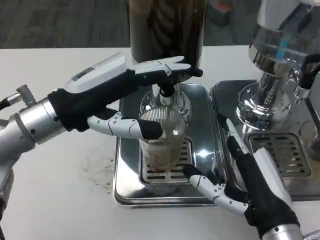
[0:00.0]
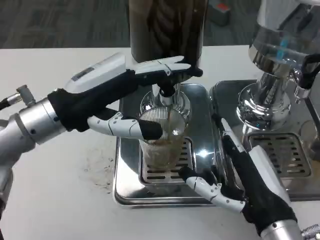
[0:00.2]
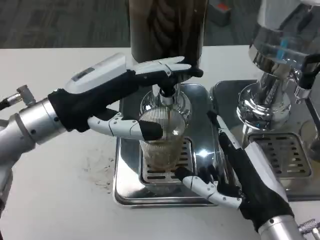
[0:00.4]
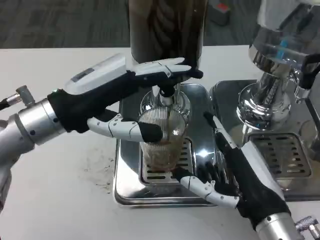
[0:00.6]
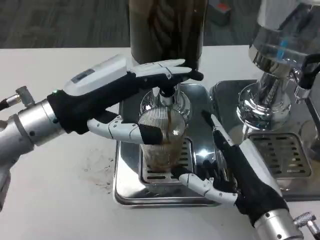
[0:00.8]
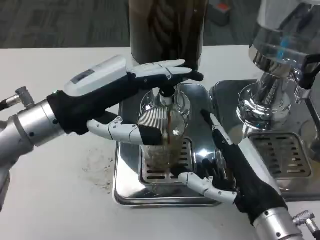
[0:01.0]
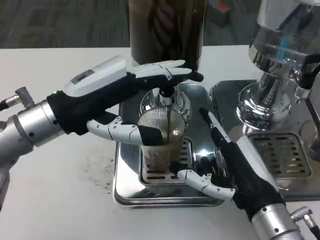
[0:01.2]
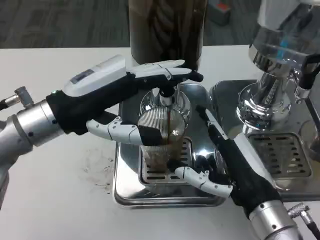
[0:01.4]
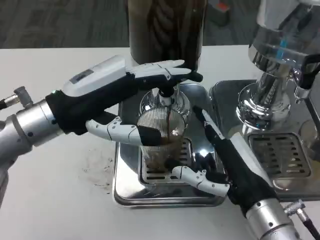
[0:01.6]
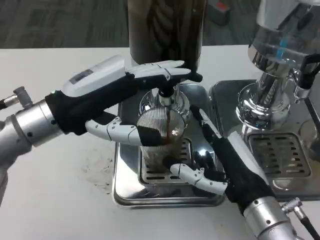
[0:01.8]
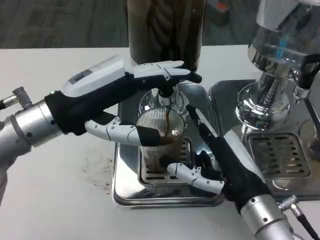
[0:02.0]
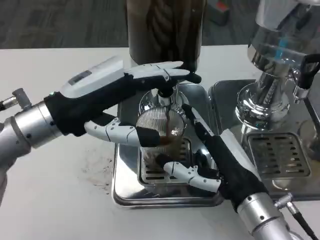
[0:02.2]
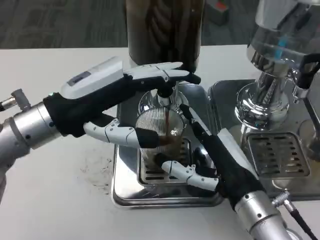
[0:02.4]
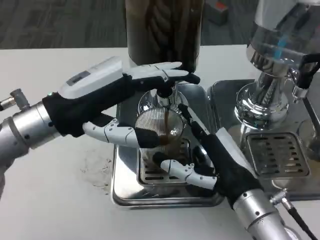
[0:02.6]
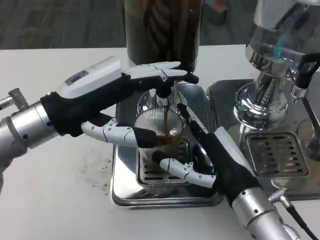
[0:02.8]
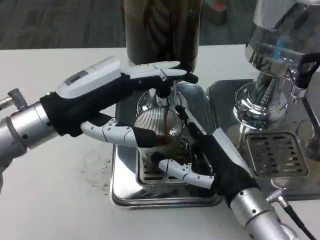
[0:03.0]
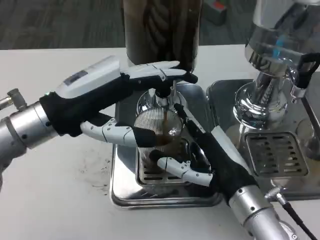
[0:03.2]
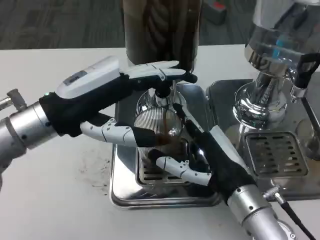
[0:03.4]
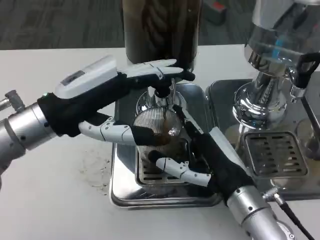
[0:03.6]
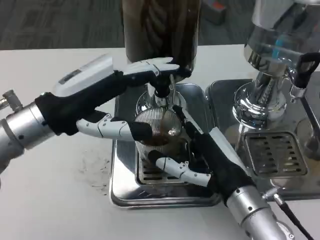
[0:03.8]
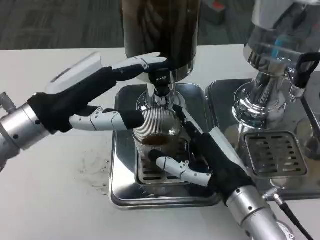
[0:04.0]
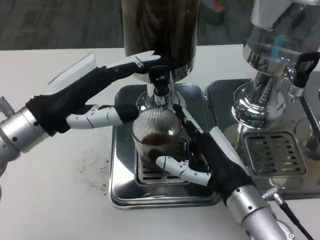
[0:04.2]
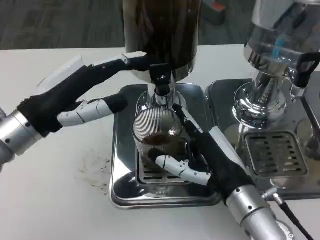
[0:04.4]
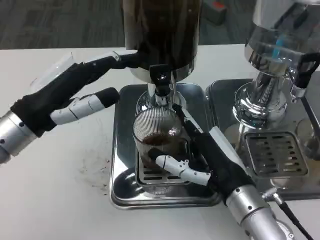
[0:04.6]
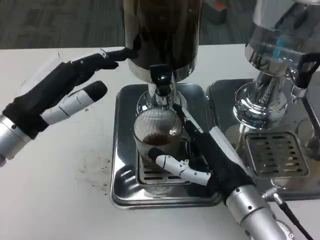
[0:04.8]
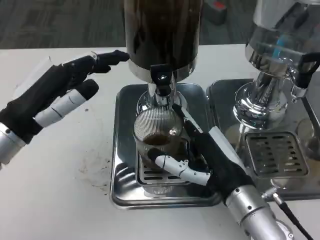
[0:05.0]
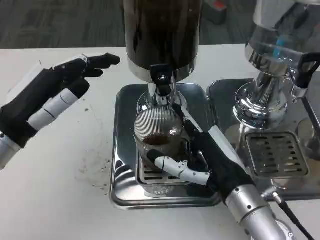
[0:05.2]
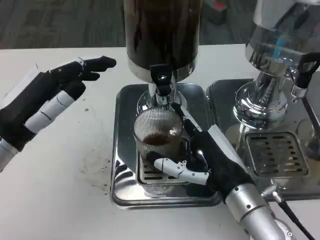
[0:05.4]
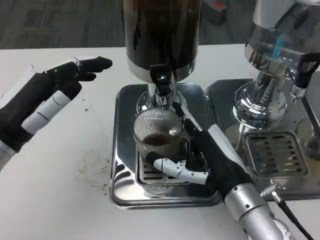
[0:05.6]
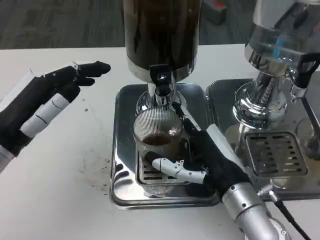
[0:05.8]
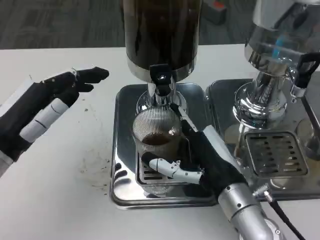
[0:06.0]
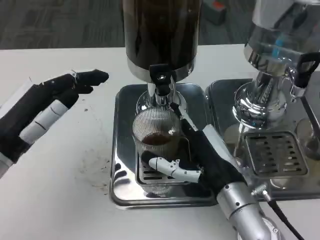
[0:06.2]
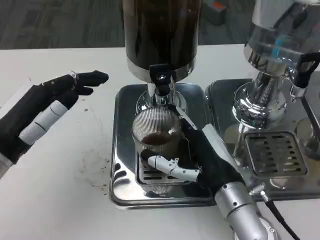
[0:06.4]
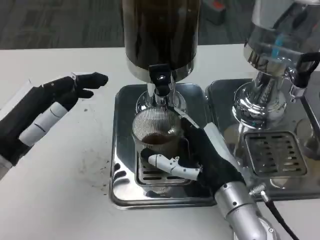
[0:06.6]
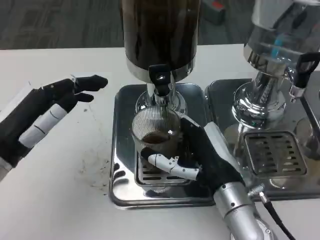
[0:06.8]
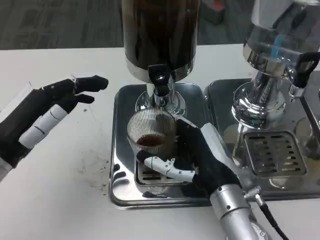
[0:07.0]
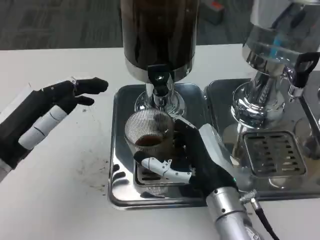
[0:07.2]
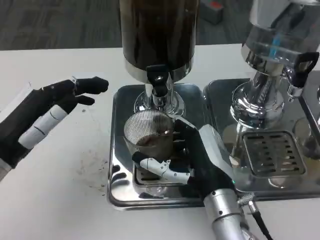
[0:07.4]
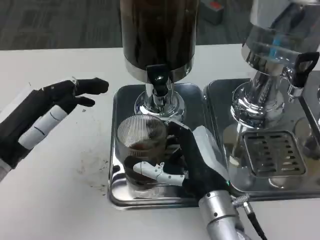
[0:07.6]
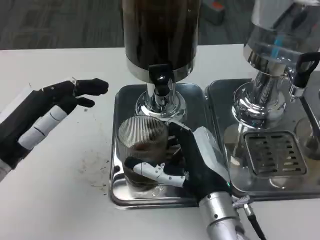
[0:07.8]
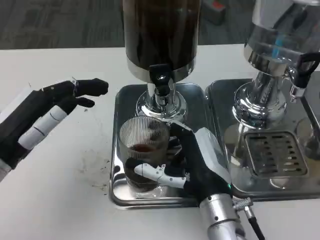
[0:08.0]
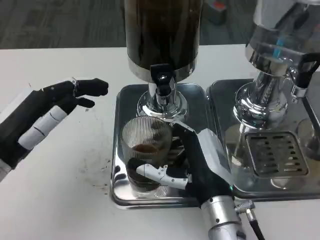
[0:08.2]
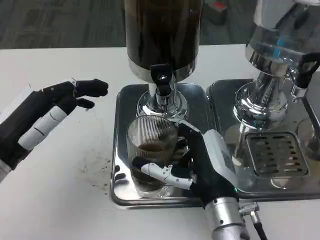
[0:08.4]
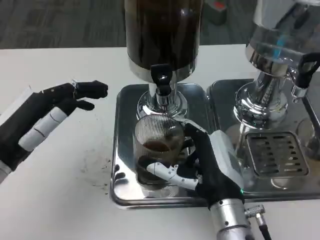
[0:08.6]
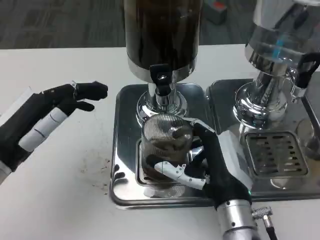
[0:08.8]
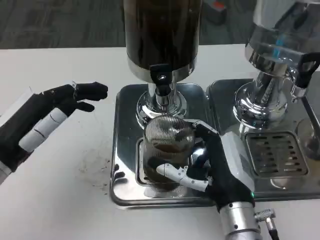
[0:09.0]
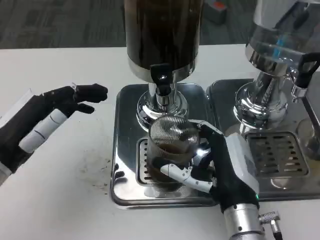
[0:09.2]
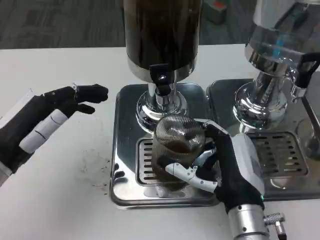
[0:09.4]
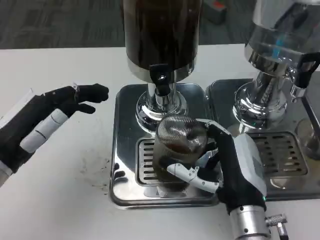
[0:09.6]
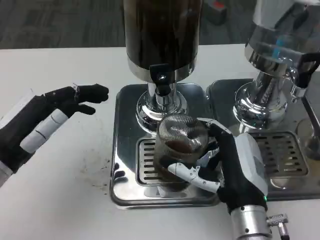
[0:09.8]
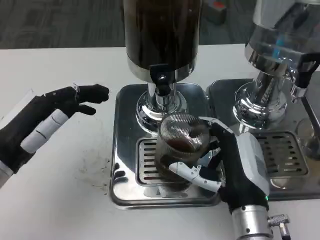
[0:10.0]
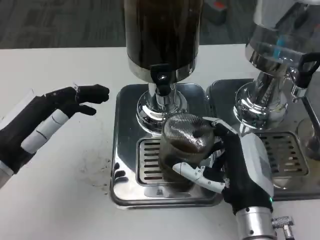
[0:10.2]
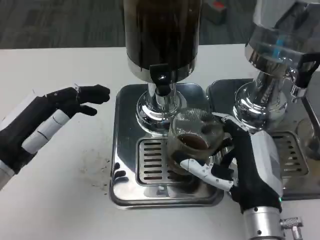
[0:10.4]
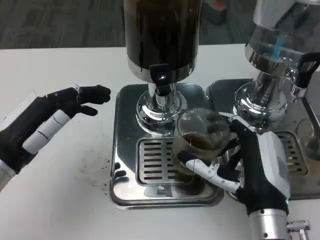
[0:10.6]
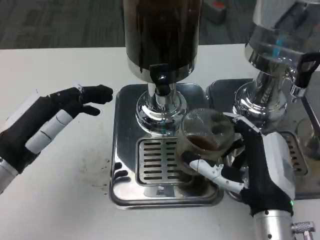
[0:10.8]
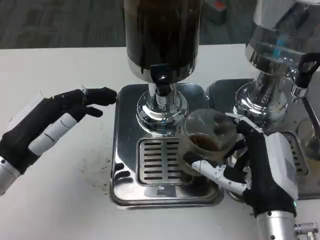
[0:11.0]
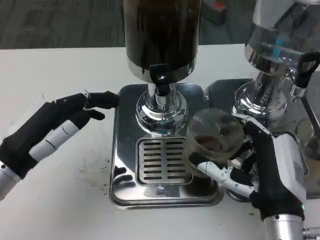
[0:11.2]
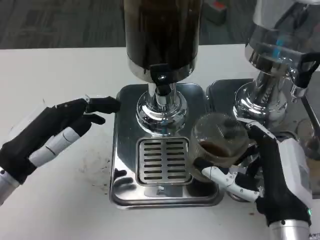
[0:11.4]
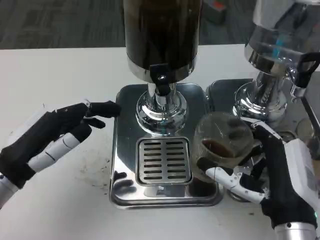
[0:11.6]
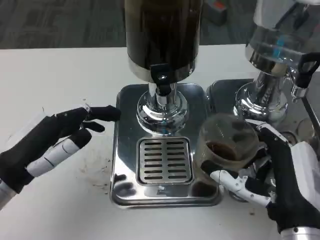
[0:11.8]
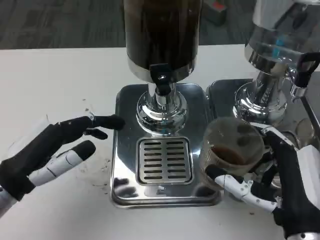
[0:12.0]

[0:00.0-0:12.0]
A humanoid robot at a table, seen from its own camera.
Task of the whole recording: Grasp the cup under the faucet to collect the drink, then remove the cup.
0:00.0 to 0:01.6: The hands stay close to where they were, moving slightly.
0:04.4 to 0:06.0: The left hand shifts by about 5 cm.
0:09.0 to 0:10.4: The hands move only a little.
0:10.4 to 0:12.0: The right hand ends up about 5 cm from where it was.

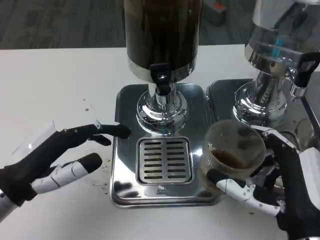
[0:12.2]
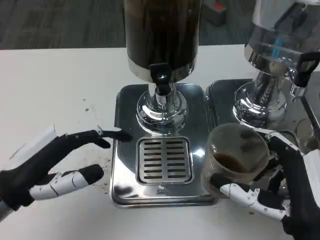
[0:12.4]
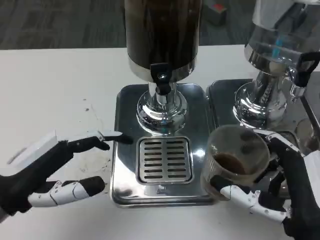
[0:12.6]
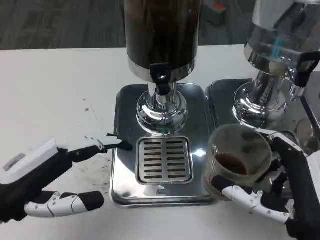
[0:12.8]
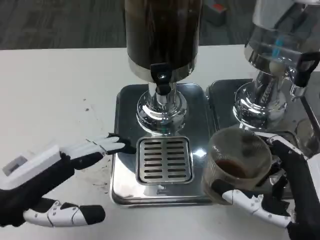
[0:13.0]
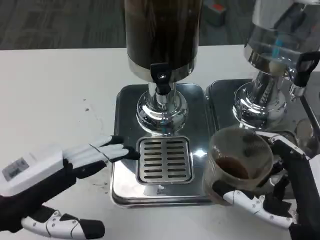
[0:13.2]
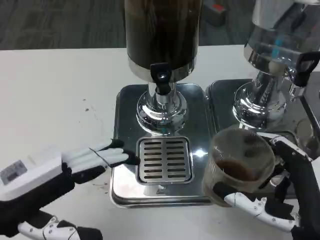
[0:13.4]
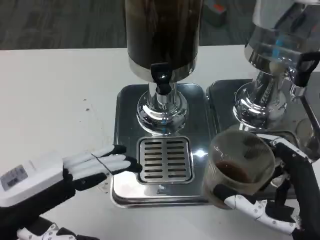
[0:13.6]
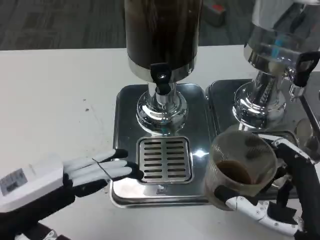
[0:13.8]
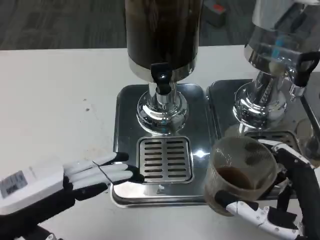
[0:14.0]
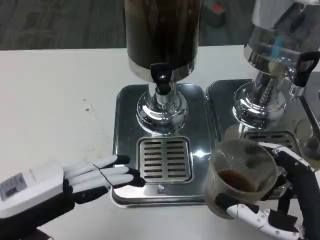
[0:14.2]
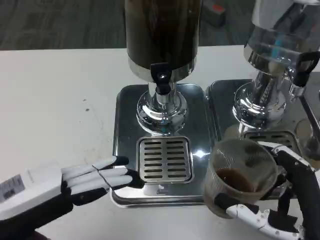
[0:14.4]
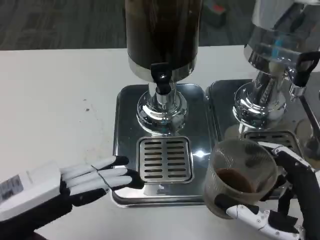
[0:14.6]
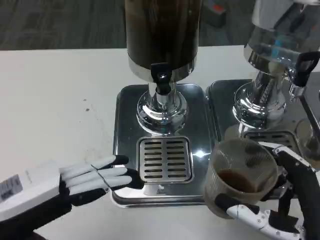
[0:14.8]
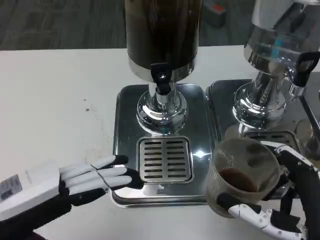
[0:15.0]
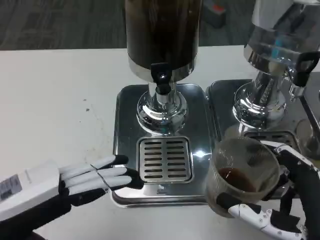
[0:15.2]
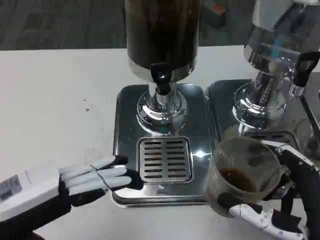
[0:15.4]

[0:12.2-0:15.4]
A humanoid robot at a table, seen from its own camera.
Task of the whole recording: Grasp the cup under the faucet to collect the drink, then remove the cup.
0:12.2 to 0:13.8: The left hand shifts by about 5 cm.
0:13.8 to 0:15.4: Neither hand changes place.

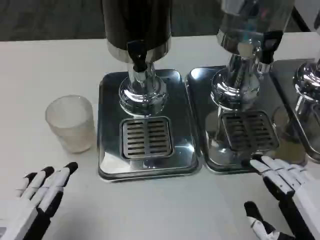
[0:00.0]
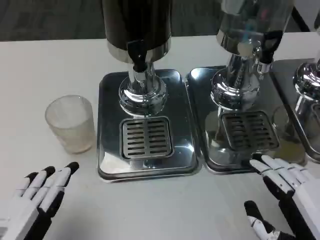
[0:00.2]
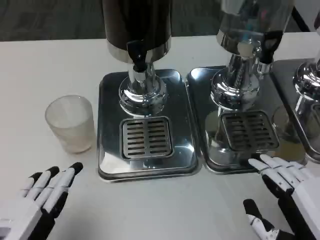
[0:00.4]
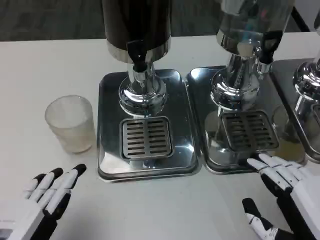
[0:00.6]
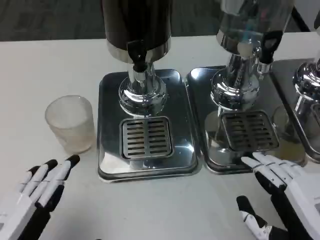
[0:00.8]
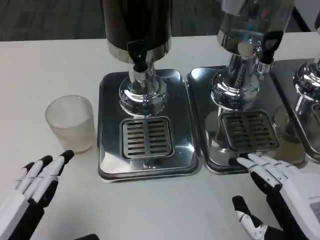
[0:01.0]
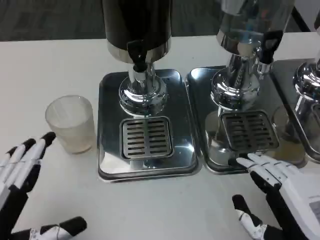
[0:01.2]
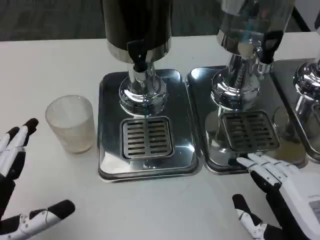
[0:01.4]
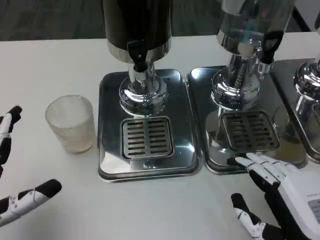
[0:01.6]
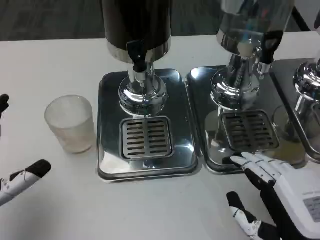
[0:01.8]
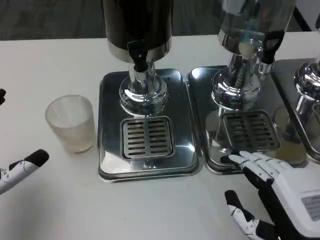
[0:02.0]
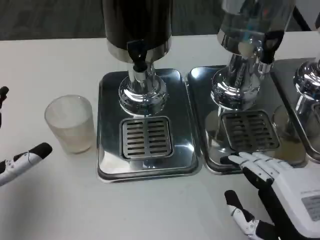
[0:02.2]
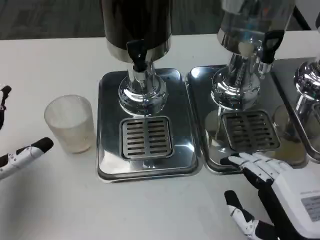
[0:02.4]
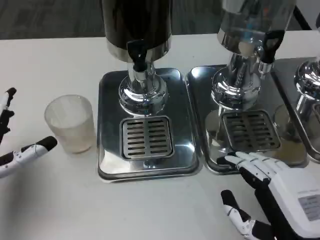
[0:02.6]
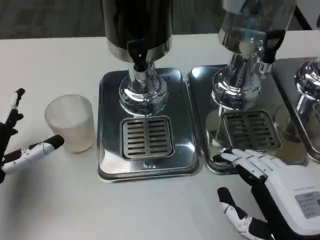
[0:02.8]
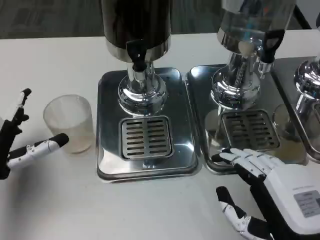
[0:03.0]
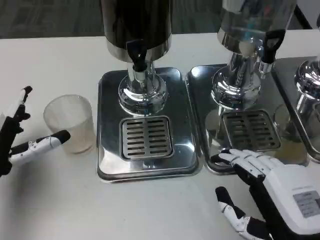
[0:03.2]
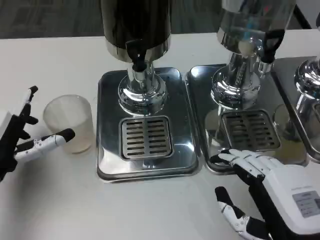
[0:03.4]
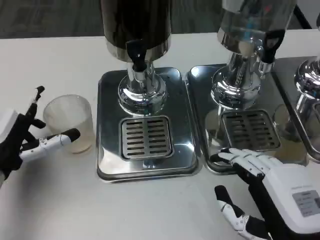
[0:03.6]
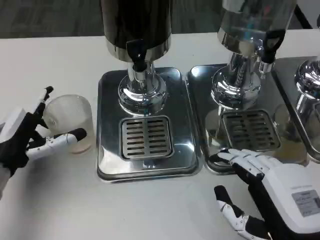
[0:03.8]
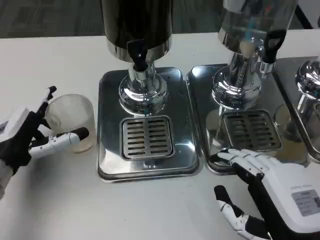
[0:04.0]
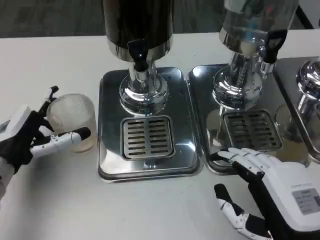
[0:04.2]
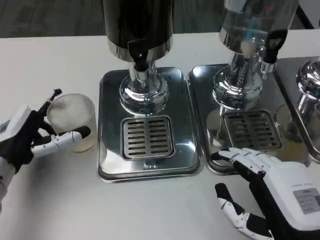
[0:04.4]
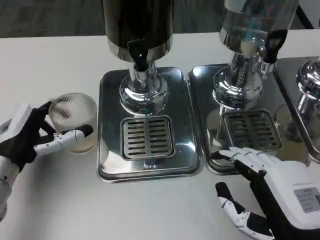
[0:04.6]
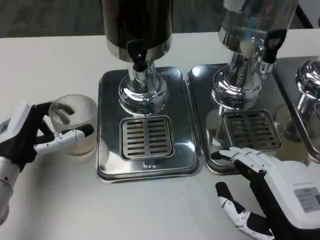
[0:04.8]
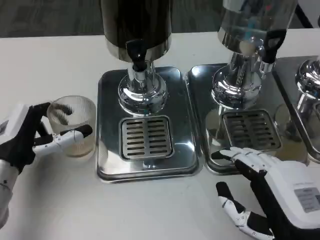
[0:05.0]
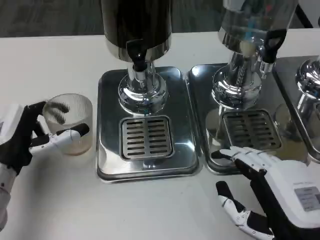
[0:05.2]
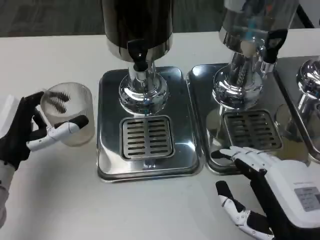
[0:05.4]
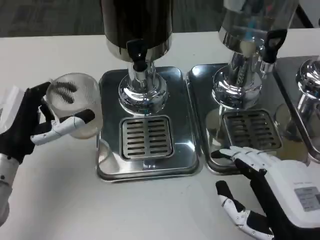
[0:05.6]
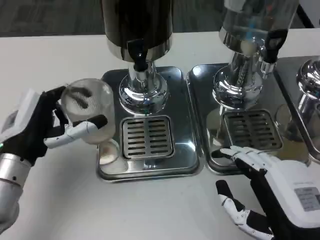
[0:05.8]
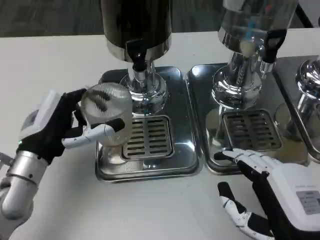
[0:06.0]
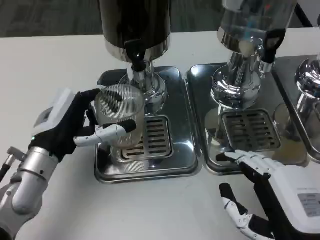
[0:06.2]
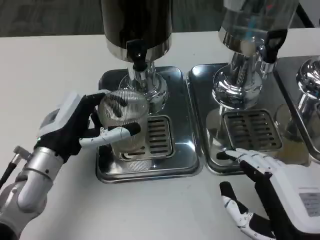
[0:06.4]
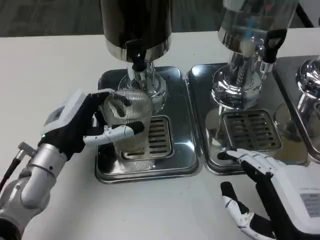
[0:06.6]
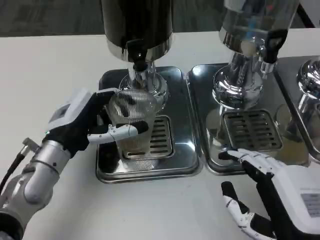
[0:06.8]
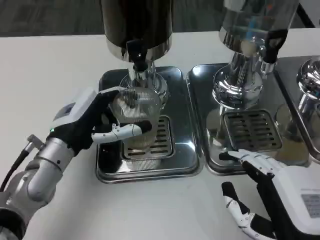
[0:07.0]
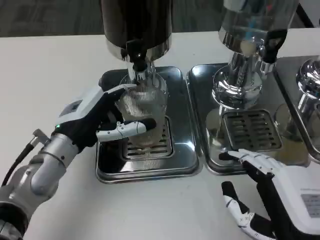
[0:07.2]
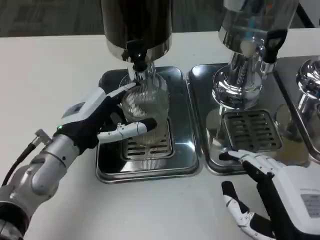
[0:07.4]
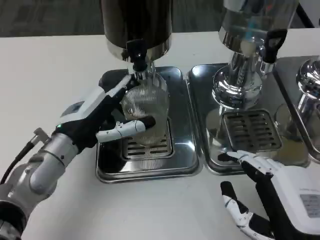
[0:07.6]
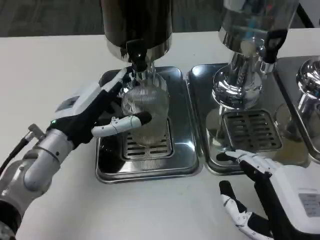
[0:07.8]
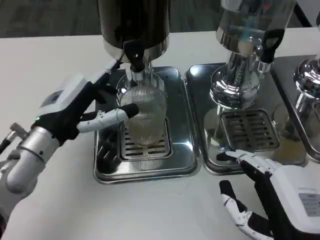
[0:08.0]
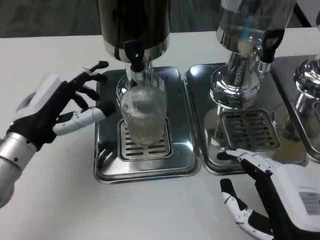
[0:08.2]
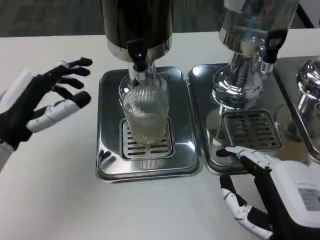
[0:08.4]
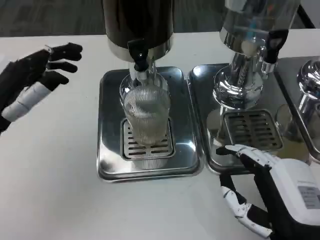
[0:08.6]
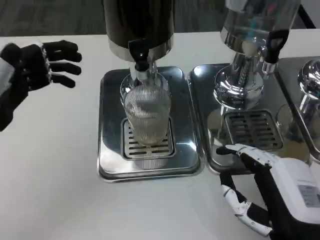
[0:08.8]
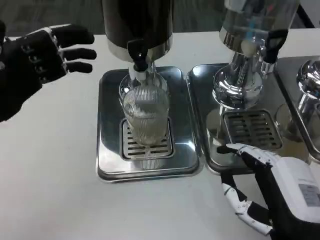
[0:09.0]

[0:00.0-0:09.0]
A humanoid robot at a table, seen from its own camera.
Task of the whole recording: Grasp the cup under the faucet to collect the drink, then remove the cup.
0:00.0 to 0:01.6: The left hand is displaced forward by some 5 cm.
0:01.6 to 0:03.0: The left hand travels forward by some 10 cm.
0:07.6 to 0:09.0: The left hand moves to the left and upward, approximately 15 cm.
